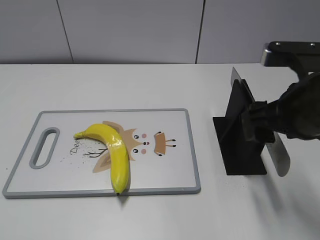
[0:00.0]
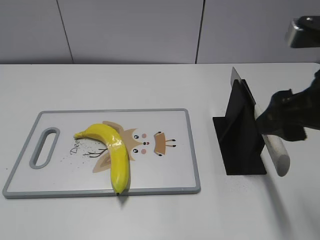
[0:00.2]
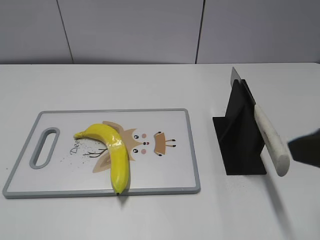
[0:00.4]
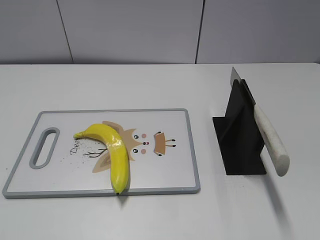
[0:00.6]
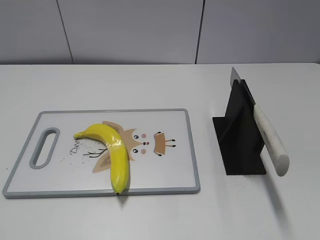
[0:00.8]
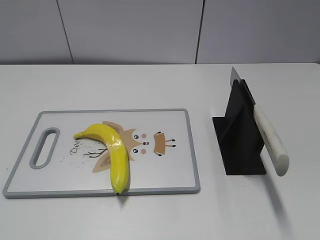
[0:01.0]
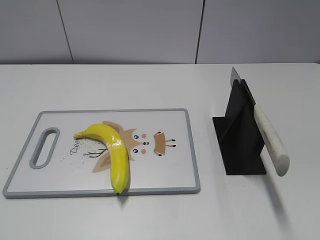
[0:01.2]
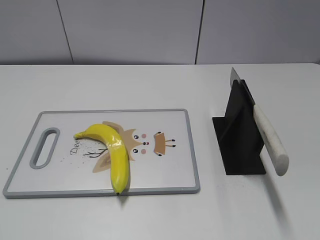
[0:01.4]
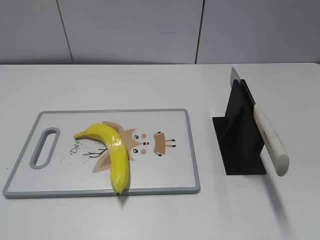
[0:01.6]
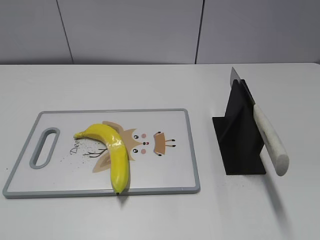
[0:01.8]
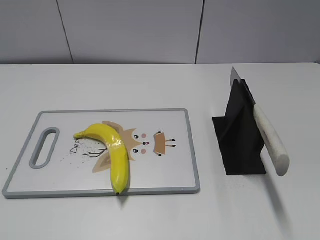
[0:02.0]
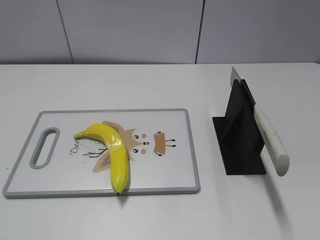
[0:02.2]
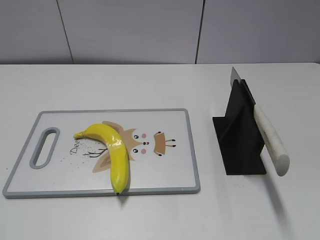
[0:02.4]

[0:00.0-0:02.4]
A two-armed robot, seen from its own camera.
Task of the whole recording: cut plastic banana.
Step, 0:00.0 to 0:02.4: Place the knife on the storage rack with your right hand.
0:00.0 to 0:01.2: The right gripper goes approximately 25 cm backward and to the right.
